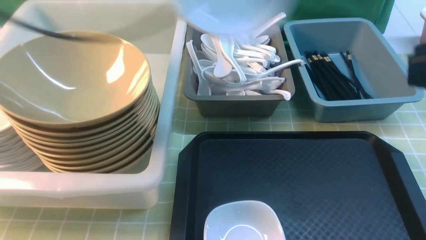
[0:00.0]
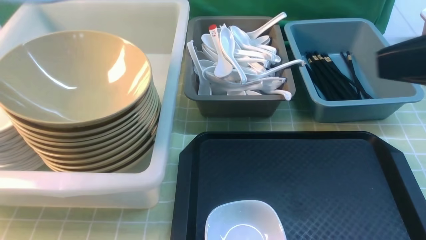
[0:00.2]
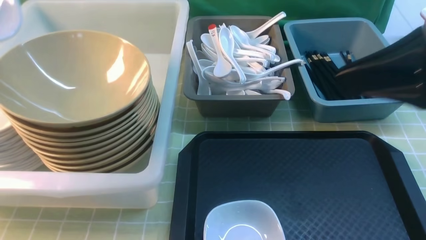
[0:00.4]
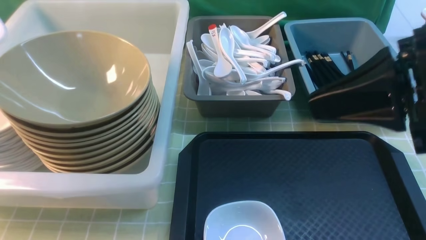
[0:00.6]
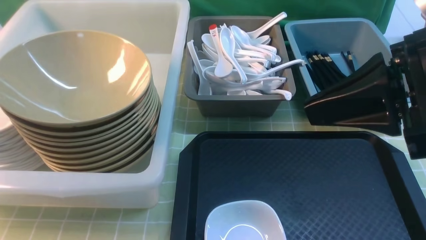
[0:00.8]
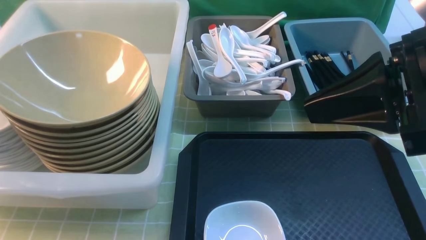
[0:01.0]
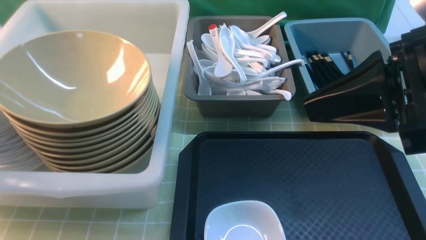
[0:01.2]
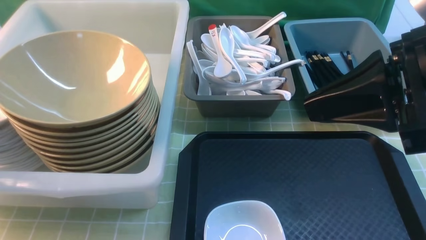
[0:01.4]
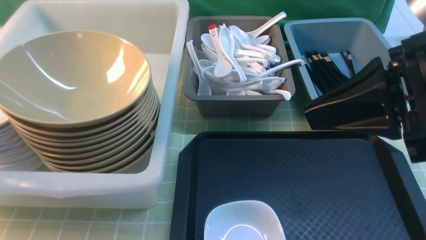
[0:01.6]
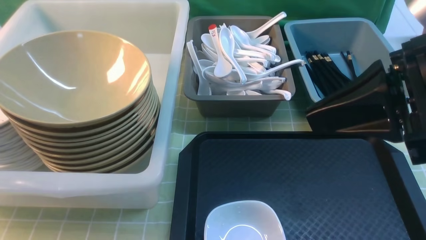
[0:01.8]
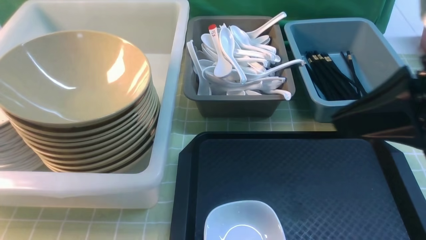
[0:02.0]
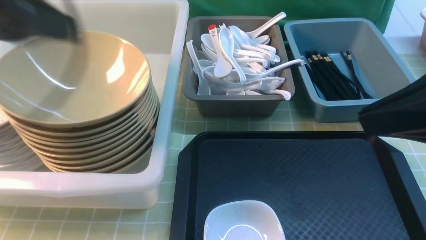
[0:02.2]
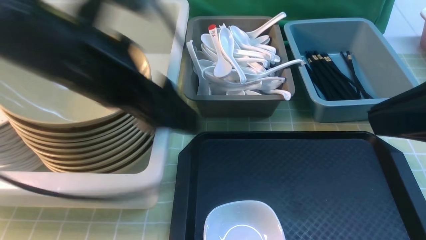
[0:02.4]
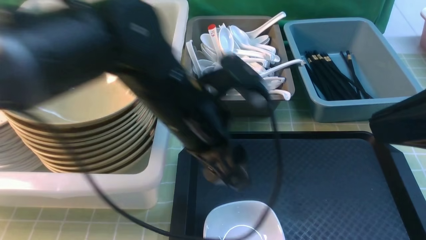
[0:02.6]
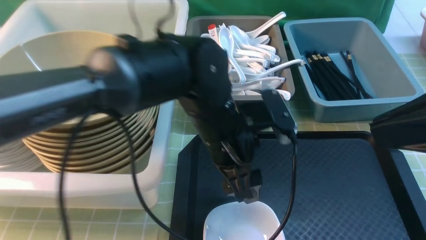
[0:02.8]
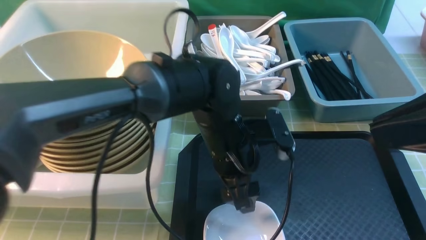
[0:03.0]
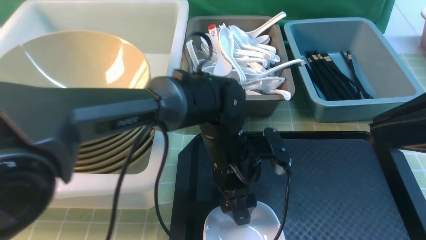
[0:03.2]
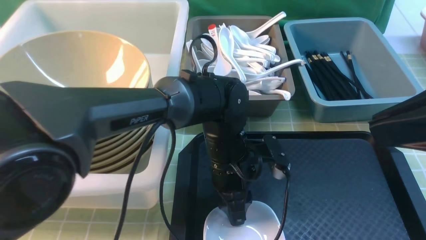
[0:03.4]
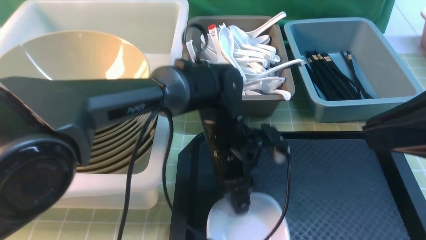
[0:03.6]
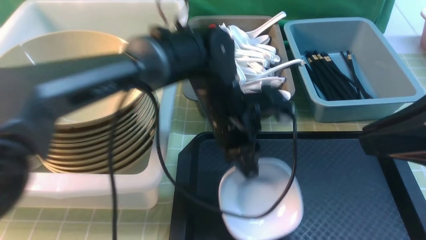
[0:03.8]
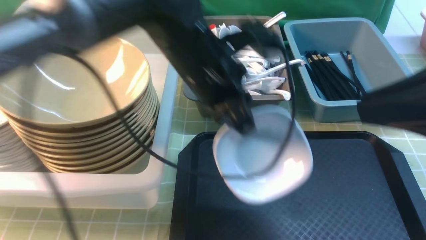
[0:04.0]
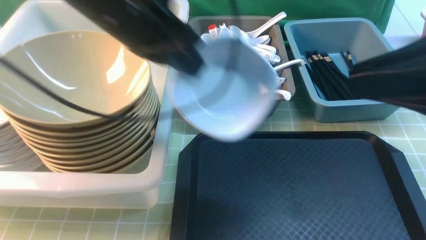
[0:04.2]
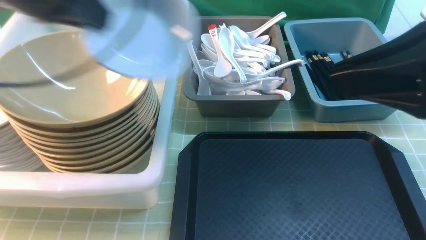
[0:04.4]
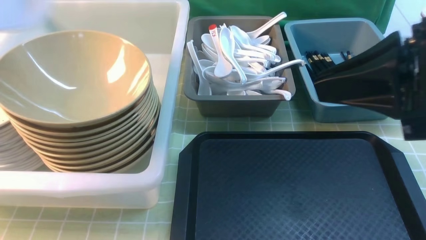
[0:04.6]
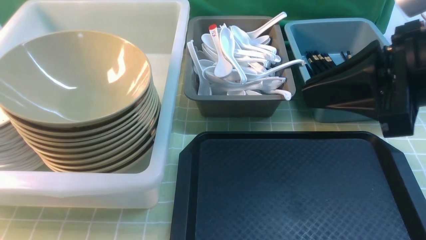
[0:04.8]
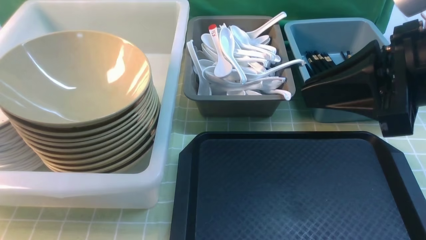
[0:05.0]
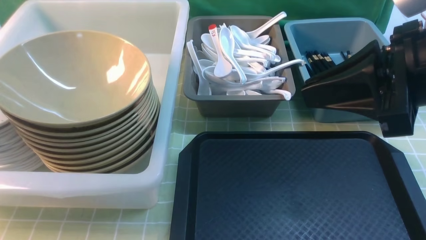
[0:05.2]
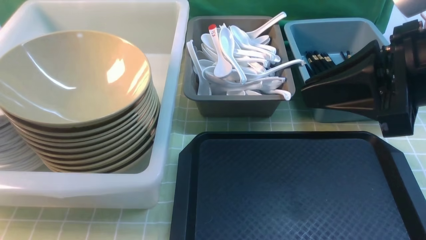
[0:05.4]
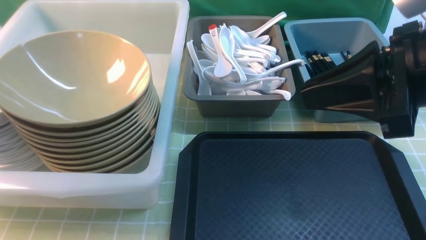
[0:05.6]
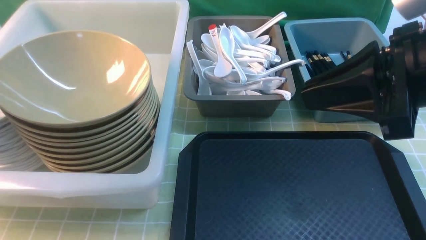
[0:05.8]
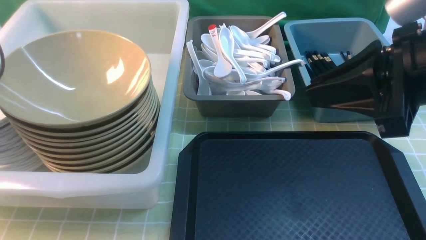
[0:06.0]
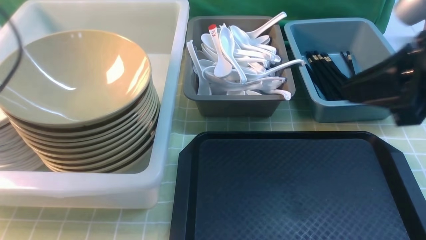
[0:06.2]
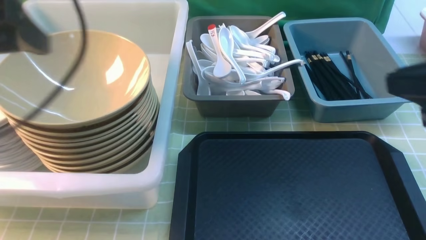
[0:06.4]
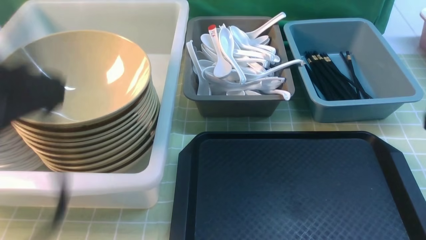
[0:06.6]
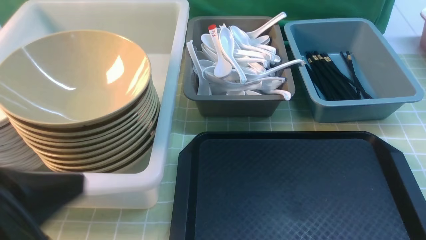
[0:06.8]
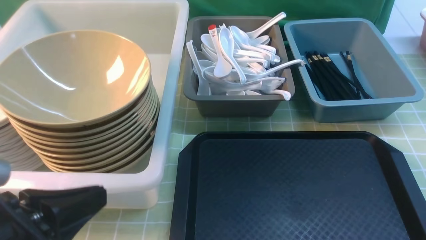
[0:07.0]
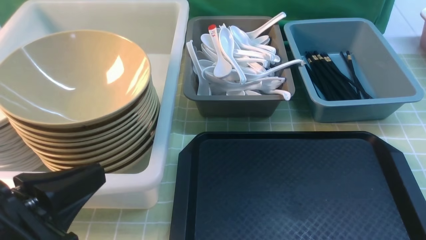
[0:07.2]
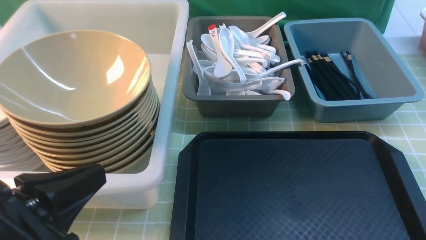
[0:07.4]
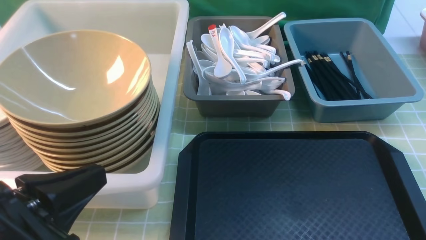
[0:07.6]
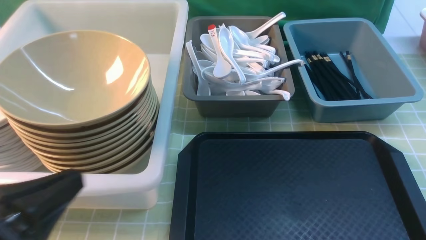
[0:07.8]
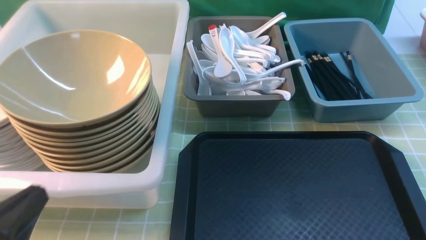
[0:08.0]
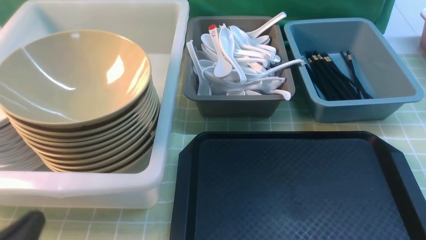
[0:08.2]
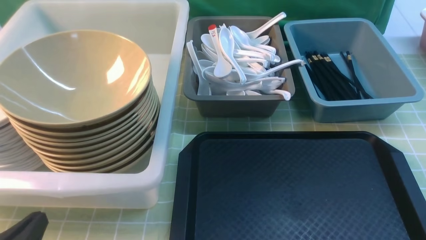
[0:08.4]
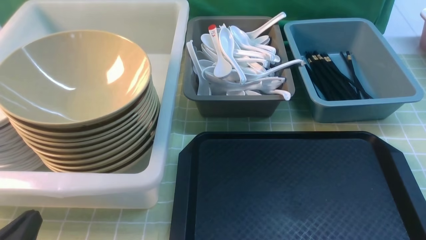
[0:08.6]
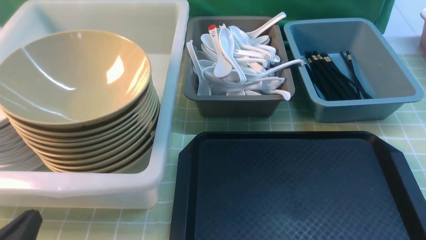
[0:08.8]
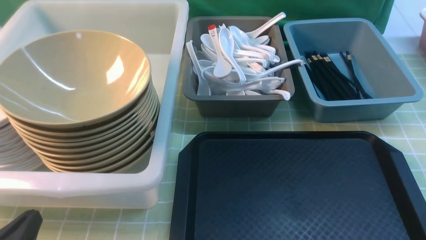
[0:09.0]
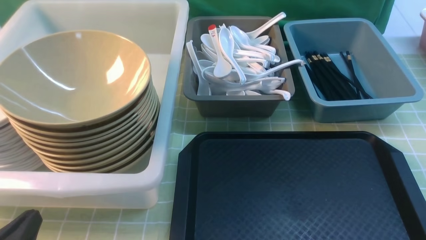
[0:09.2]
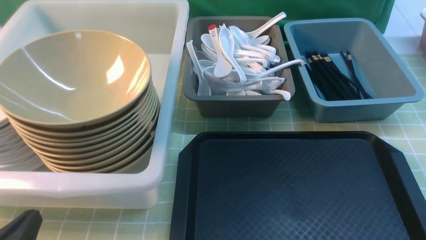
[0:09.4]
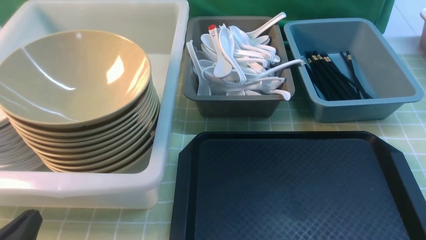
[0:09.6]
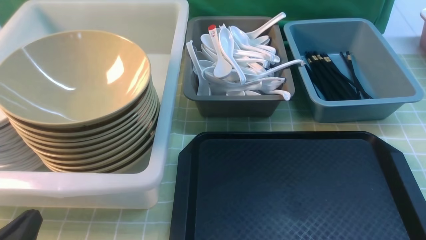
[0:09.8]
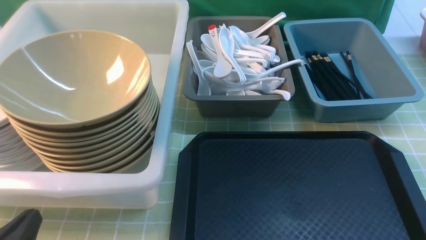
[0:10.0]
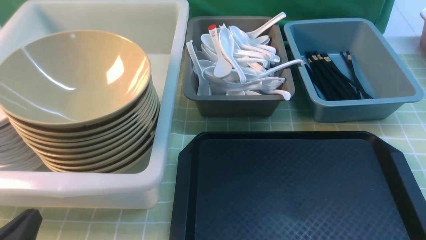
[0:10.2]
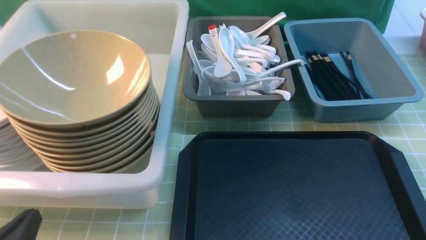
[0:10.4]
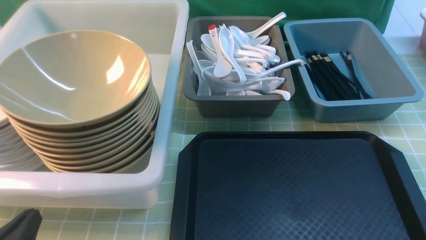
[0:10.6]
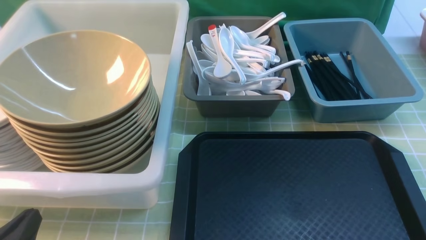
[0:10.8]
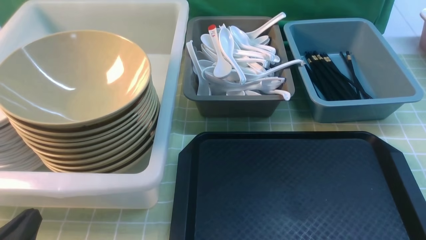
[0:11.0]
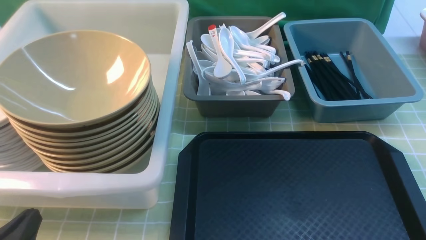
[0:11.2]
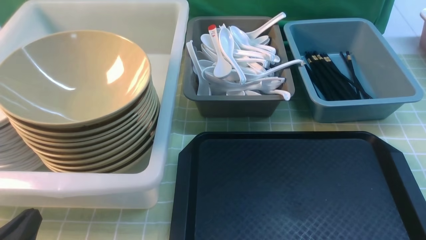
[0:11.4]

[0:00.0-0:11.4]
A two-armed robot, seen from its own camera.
Task of the whole recording: on green table put chopsticks spoon bowls plates into blue grey white boxes.
Step, 0:00.0 to 0:01.8: use the left arm to put the plate into the large storage box on the left.
Step, 0:02.0 to 0:03.8: use the left arm to grab the plate.
Step, 0:04.2 to 0:06.8: use the left arm to put the plate into the large storage box on the left.
0:00.0 to 0:01.4: The right gripper goes roughly 5 cm to the left. The left gripper goes approximately 25 cm to the left and downward.
0:01.4 to 0:02.8: The left gripper is displaced to the right by roughly 40 cm, and opens its fingers; the right gripper ends up approximately 5 cm from where it was.
0:02.8 to 0:04.2: The left gripper goes some 20 cm upward and to the left, and closes its fingers.
0:04.2 to 0:05.6: The right gripper changes place by approximately 5 cm; the left gripper shifts roughly 25 cm to the left.
0:05.6 to 0:07.2: The left gripper moves to the right and backward, approximately 30 cm, and opens and closes again, while the right gripper moves backward, downward and to the right, approximately 20 cm.
0:07.2 to 0:08.6: The left gripper shifts some 10 cm downward and to the left.
0:10.0 to 0:11.4: The two grippers keep their place.

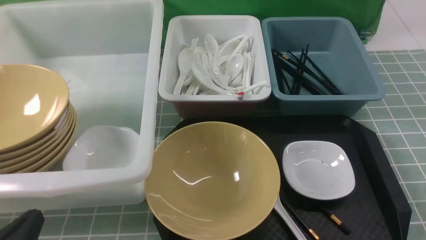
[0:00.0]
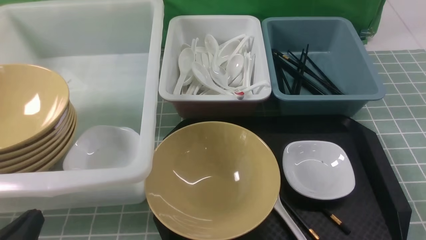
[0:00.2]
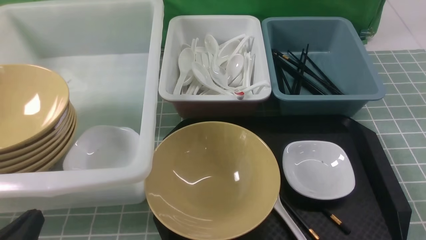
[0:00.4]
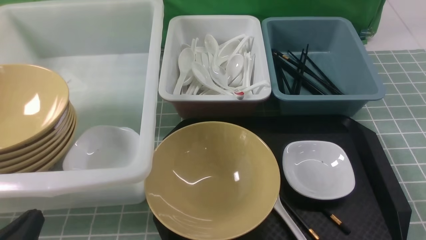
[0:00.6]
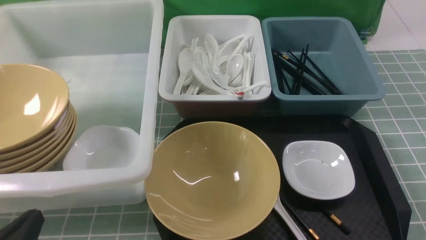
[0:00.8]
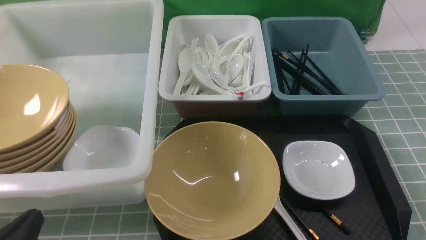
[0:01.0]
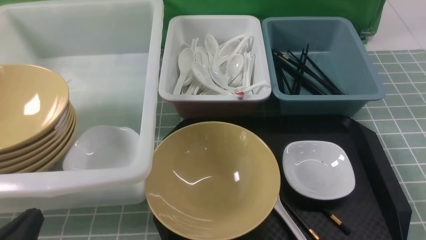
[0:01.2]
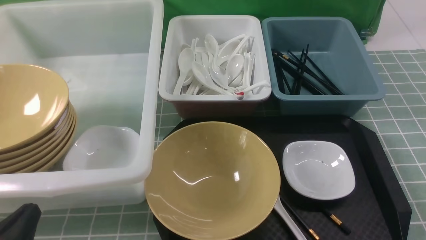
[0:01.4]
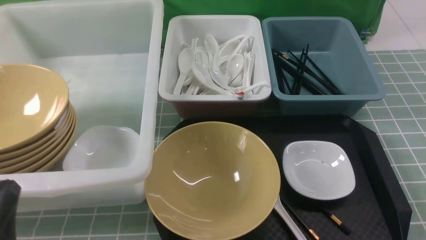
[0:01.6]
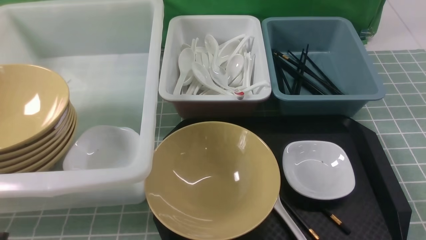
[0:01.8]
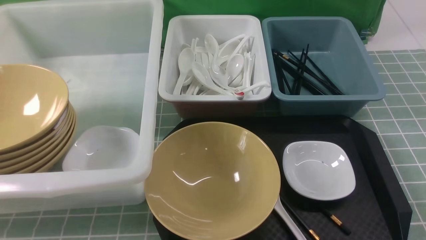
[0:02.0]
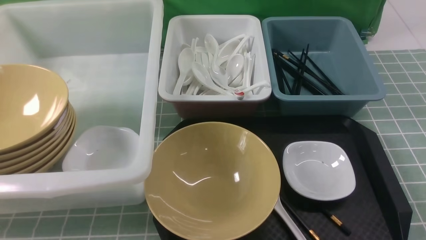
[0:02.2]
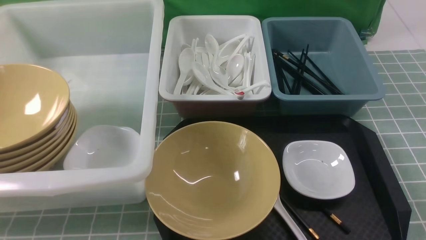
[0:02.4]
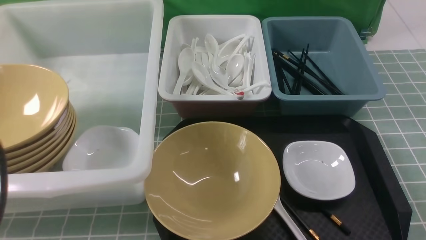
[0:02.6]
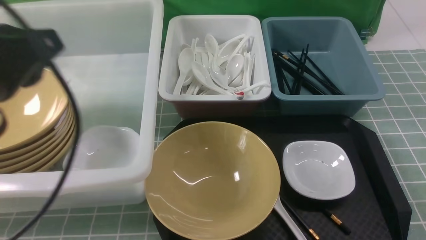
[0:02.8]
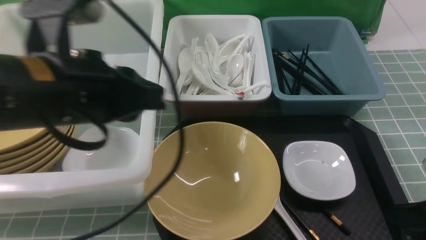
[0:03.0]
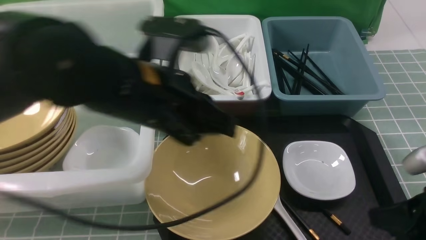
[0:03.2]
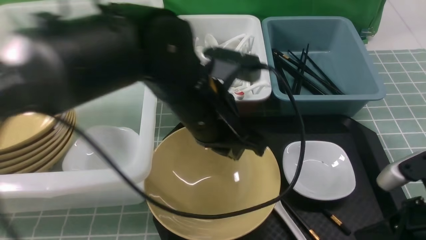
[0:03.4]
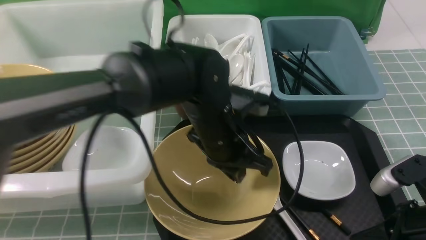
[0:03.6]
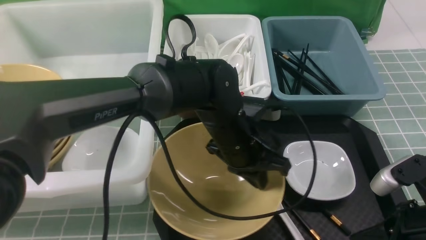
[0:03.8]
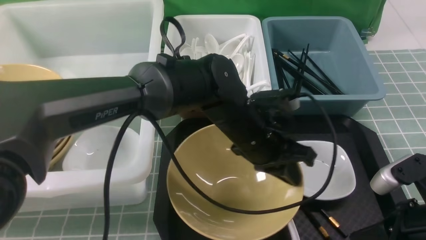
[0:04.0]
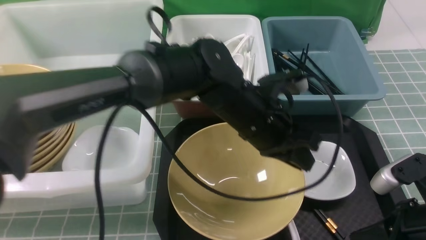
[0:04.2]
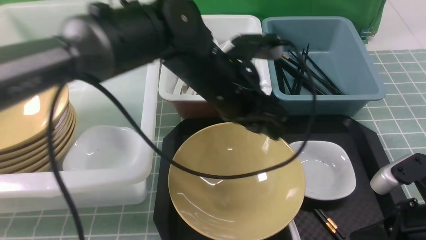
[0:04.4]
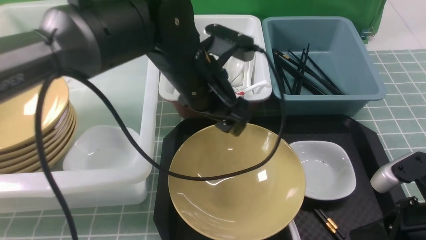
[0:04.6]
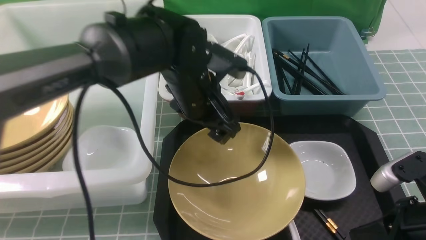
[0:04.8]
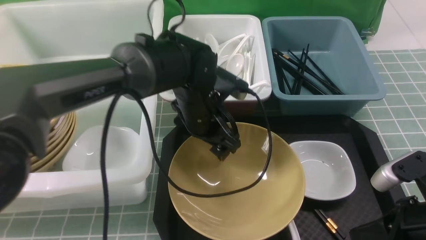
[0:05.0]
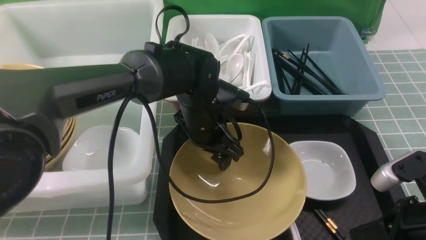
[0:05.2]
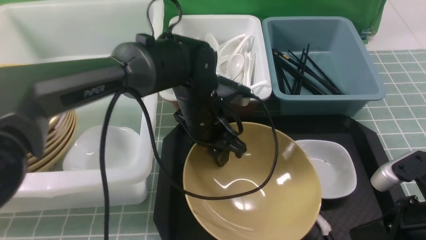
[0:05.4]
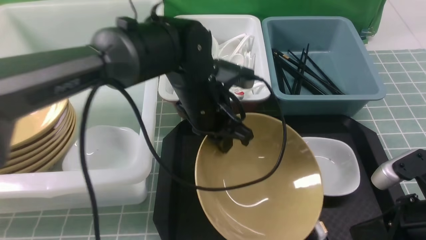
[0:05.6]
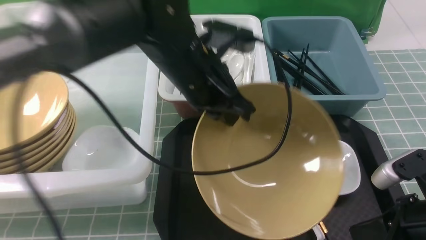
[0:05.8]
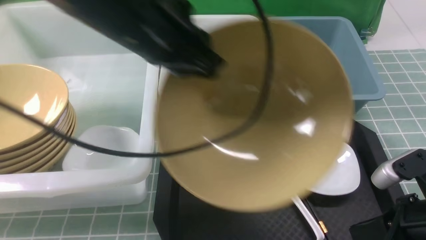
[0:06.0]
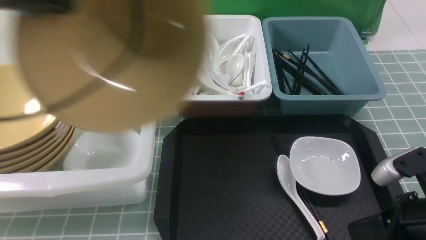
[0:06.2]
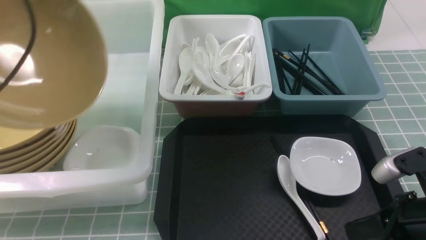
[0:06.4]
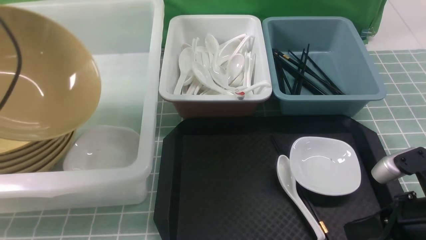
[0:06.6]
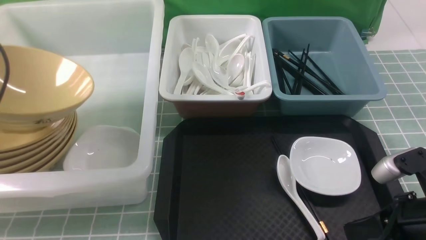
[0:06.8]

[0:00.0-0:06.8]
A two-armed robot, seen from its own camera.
Task of the whole recording: on blue table put chopsticks spoon bowls plates into blue grey white boxes.
Step, 0:00.0 to 0:05.6: use the left arm to grab the yellow noodle bowl on the left.
0:01.4 to 0:02.8: The left gripper moves upward and forward, about 20 cm.
0:02.8 to 0:04.0: The left gripper shifts some 30 cm to the right, downward and forward. Meanwhile the right gripper heads to the left, covering approximately 5 cm.
0:04.0 to 0:05.4: The left gripper moves to the left, approximately 5 cm, moves roughly 5 cm upward and comes back, and opens, then closes once more.
0:05.4 to 0:06.8: The left gripper shifts some 35 cm to the left.
